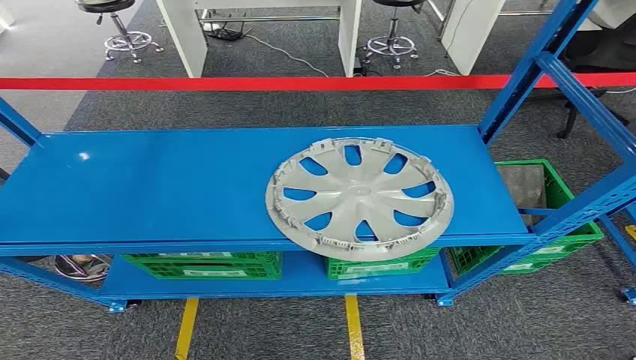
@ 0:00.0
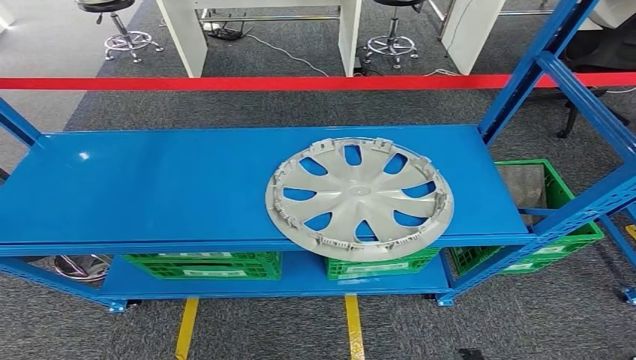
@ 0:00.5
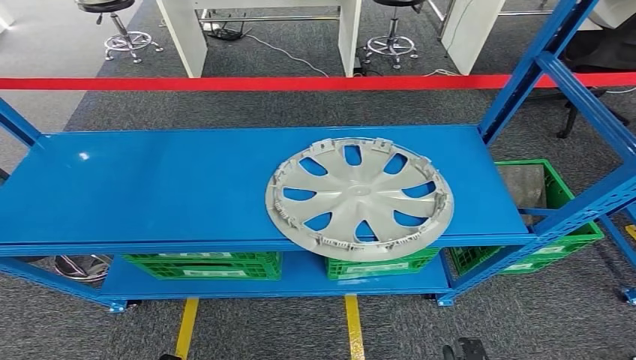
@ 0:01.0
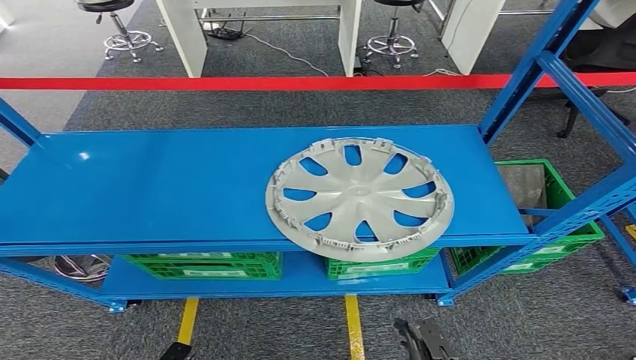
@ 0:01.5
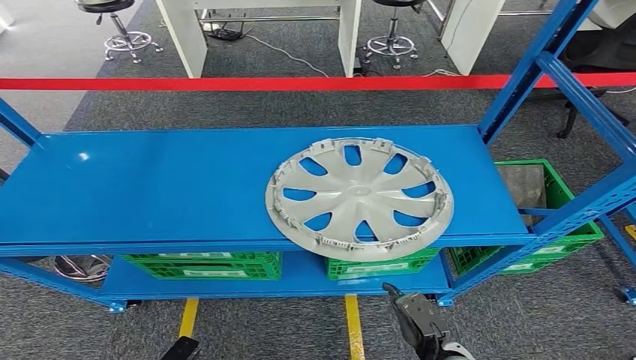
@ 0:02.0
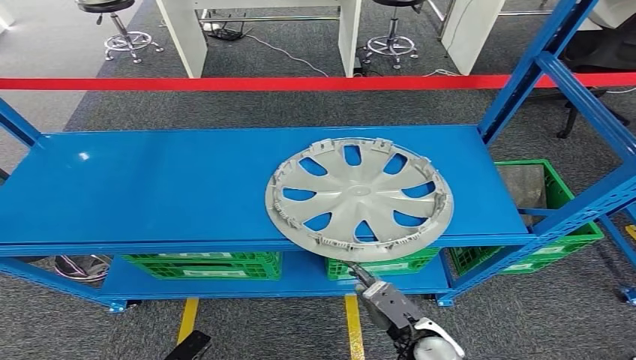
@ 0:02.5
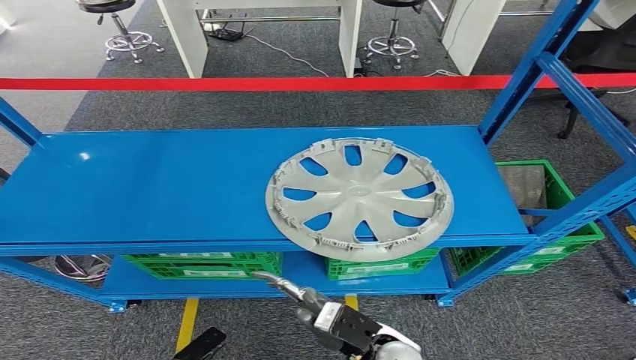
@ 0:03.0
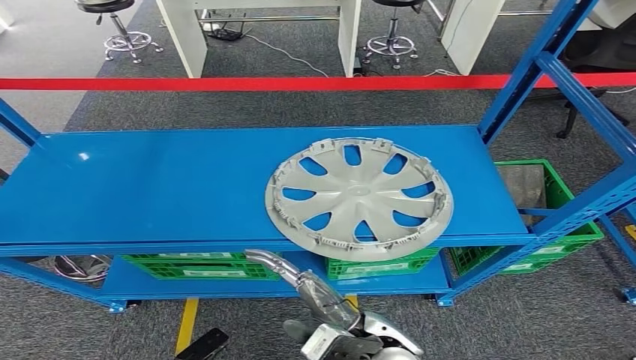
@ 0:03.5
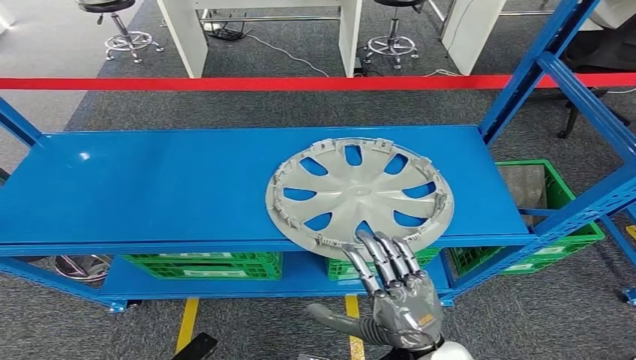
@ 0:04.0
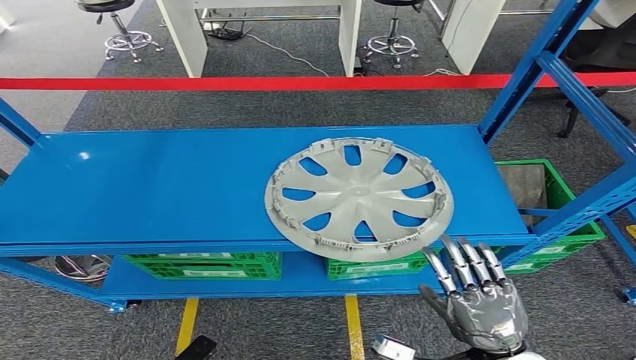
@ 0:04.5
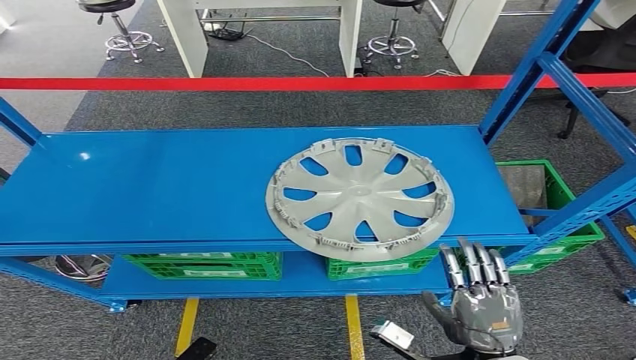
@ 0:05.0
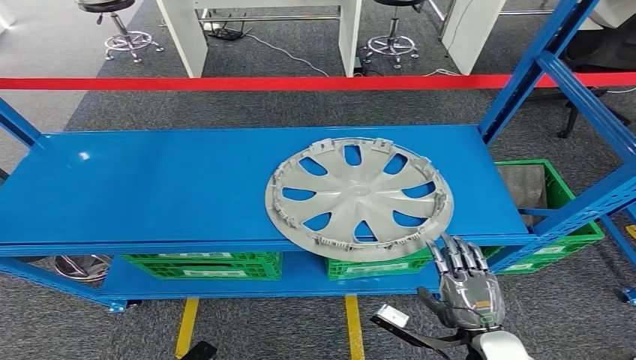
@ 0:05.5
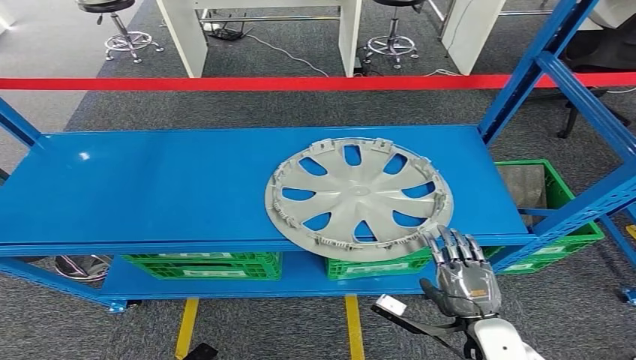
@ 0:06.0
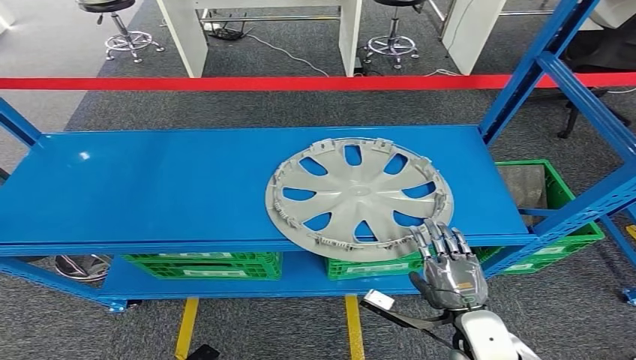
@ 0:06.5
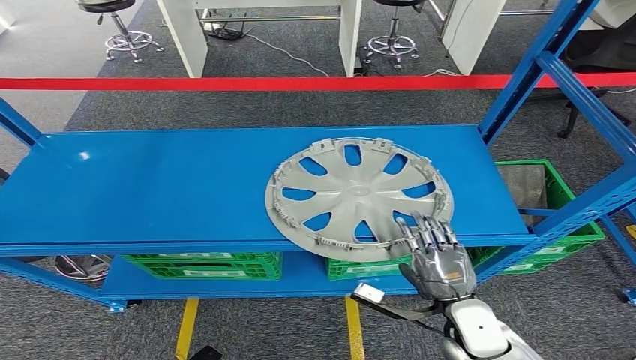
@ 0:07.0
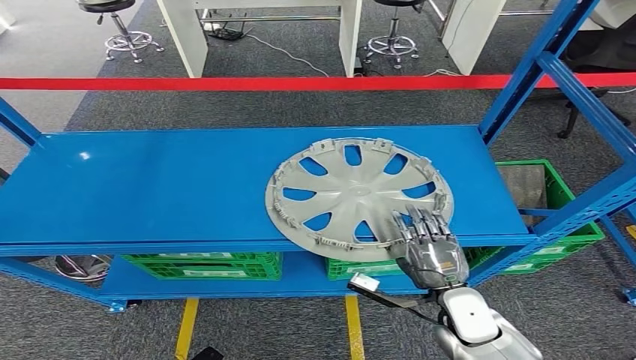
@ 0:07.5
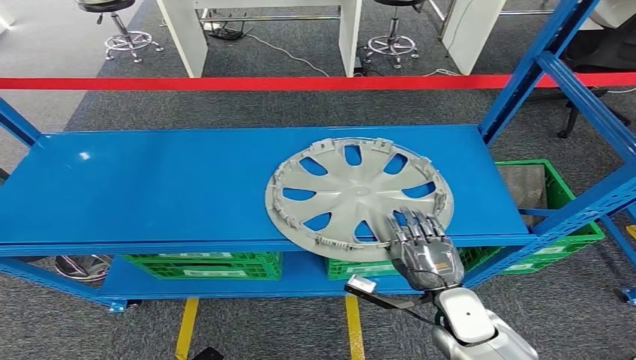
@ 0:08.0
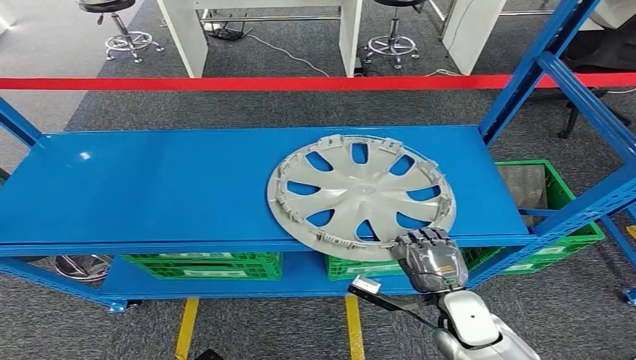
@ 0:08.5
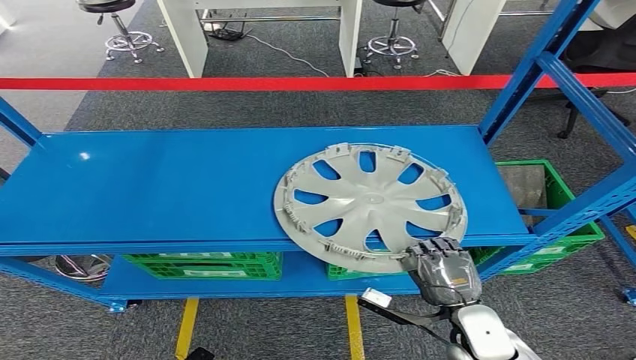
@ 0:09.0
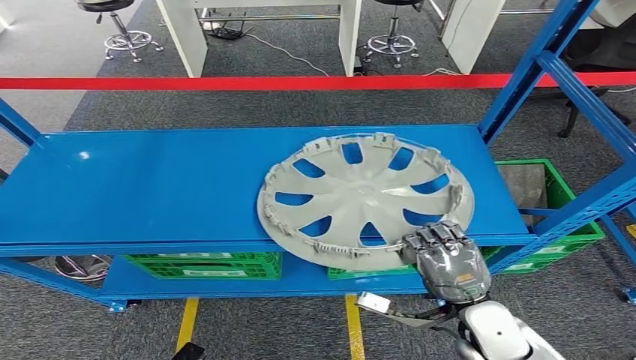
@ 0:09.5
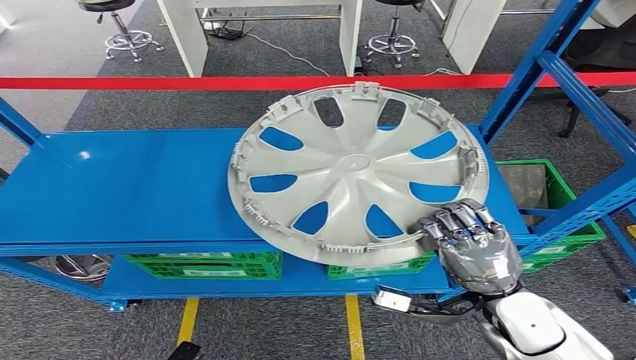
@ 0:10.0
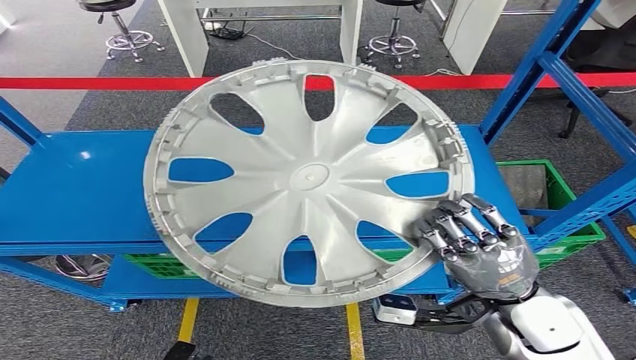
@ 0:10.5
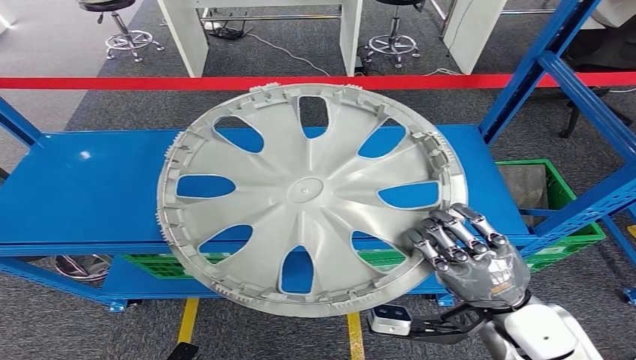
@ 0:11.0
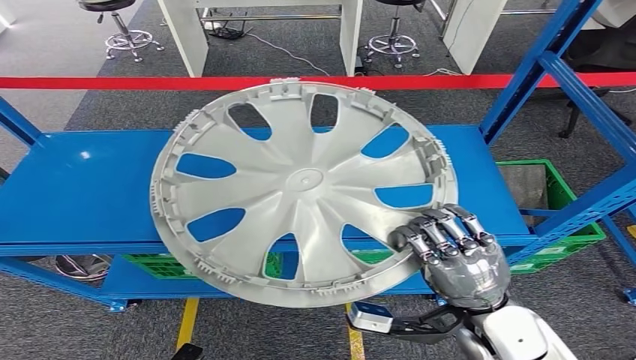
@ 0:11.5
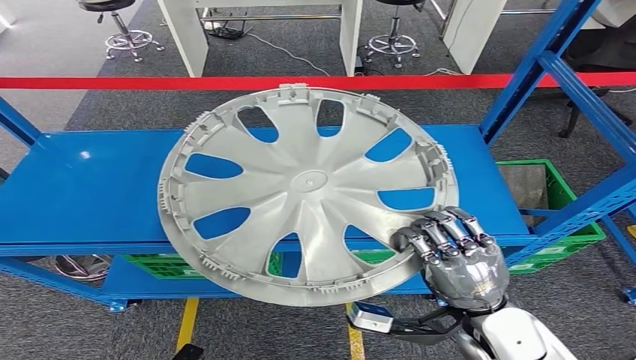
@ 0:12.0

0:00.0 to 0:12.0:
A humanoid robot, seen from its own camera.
0:02.0 to 0:04.0: The right hand is displaced upward by roughly 20 cm.
0:04.0 to 0:06.0: The right hand is displaced to the right and downward by about 15 cm.
0:06.0 to 0:08.0: The right hand is displaced forward by about 5 cm.
0:08.0 to 0:10.0: The right hand is displaced upward by roughly 10 cm.

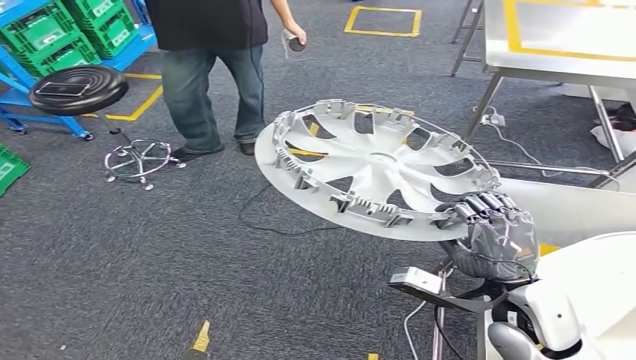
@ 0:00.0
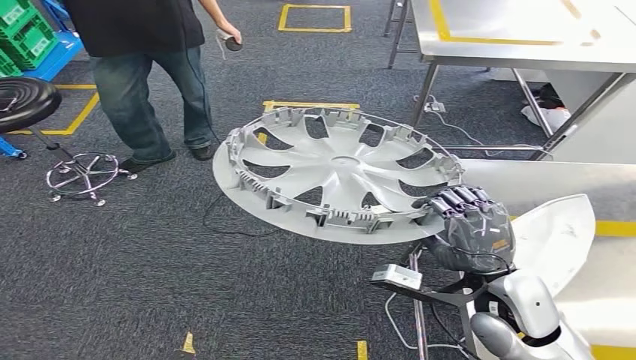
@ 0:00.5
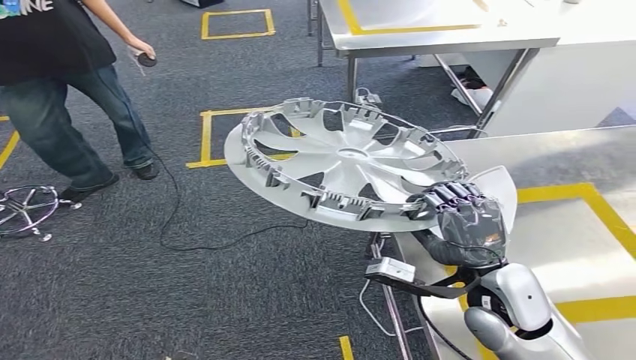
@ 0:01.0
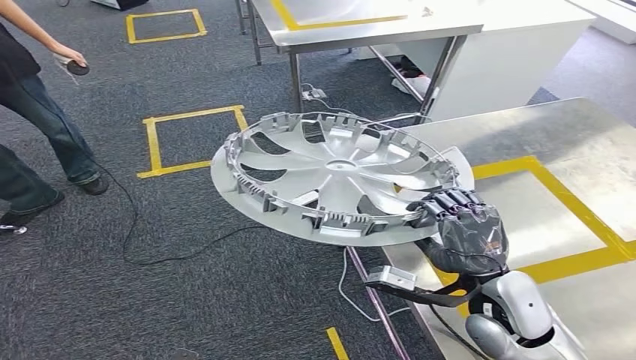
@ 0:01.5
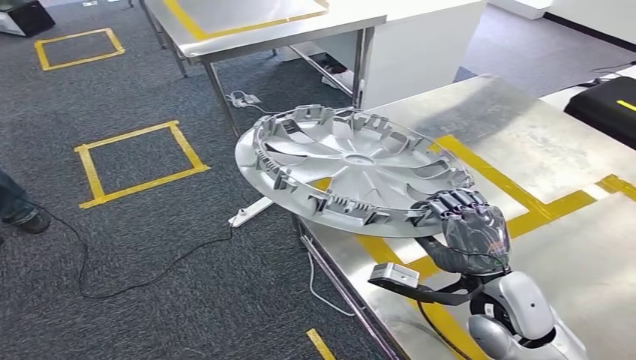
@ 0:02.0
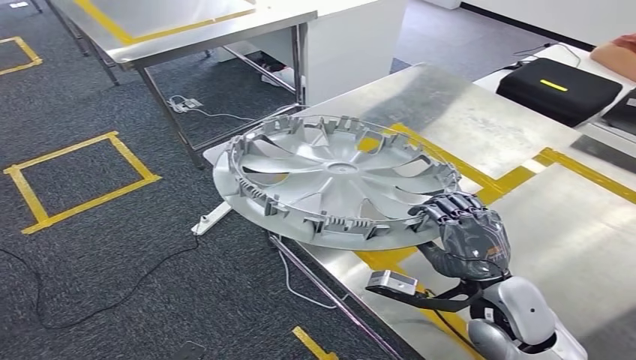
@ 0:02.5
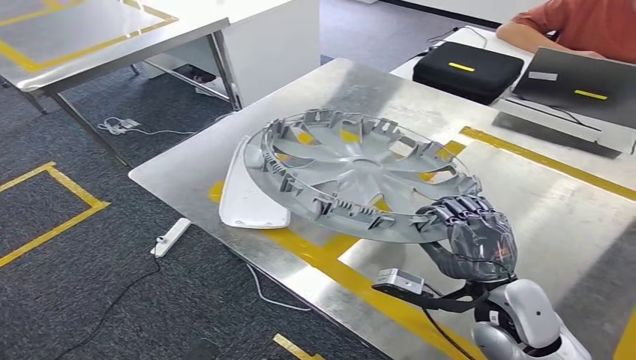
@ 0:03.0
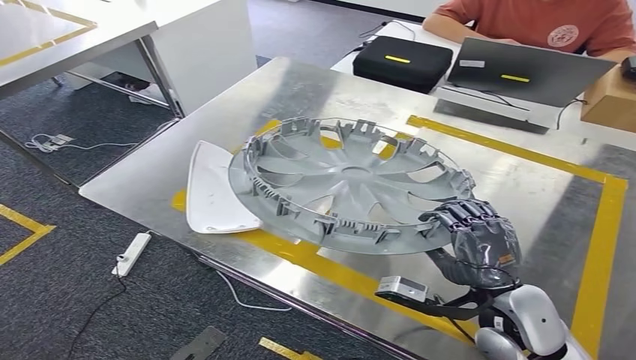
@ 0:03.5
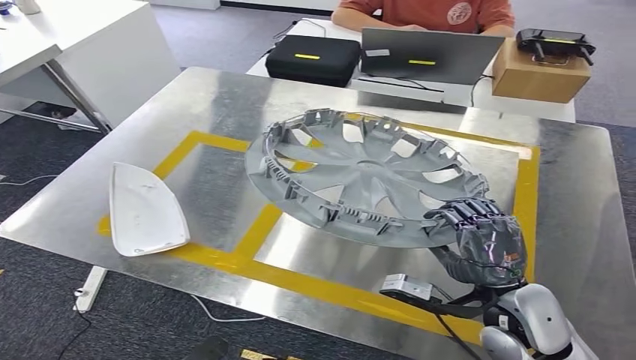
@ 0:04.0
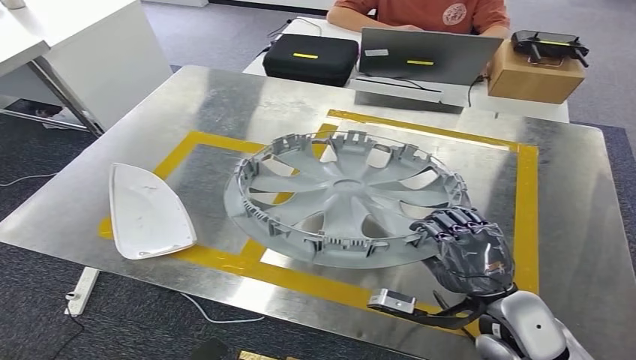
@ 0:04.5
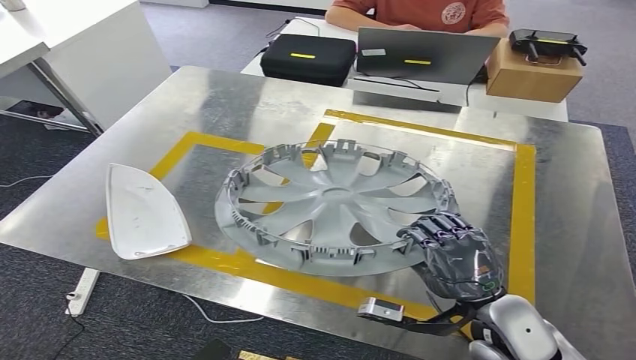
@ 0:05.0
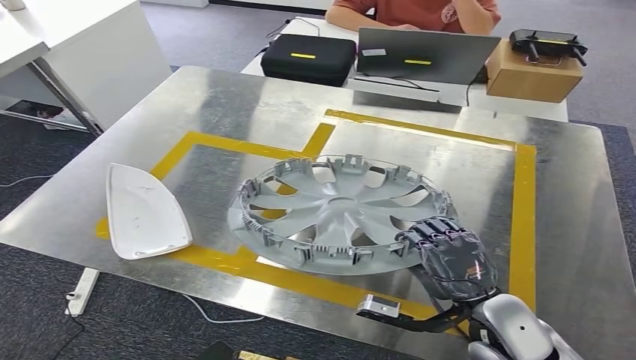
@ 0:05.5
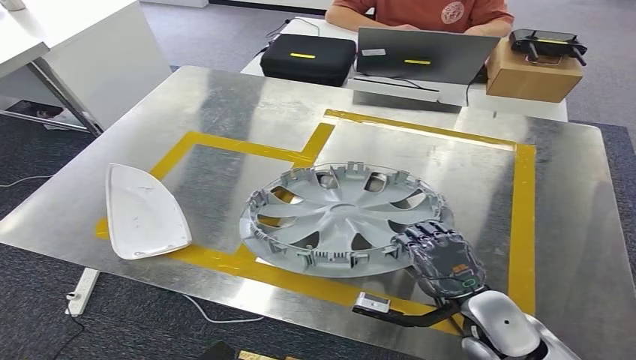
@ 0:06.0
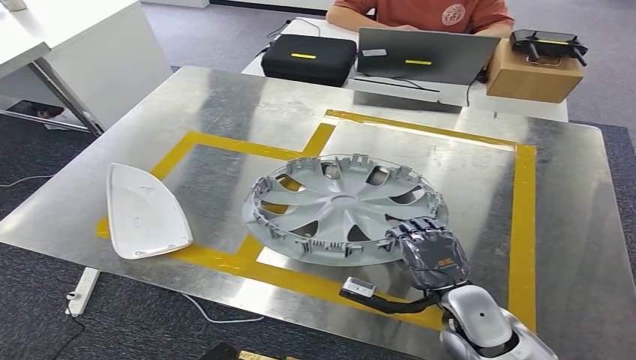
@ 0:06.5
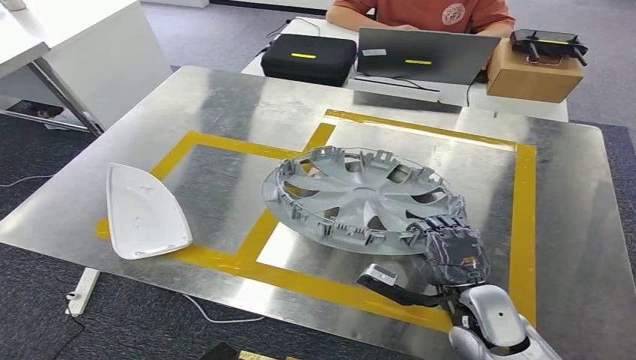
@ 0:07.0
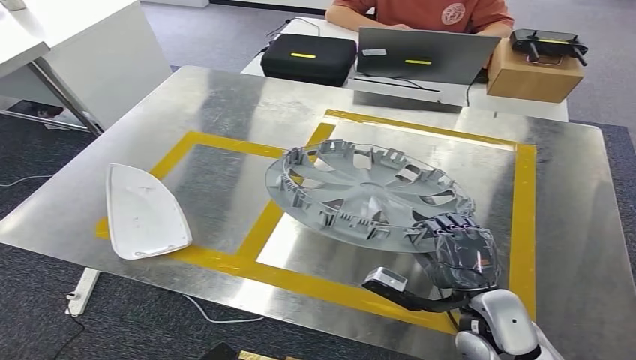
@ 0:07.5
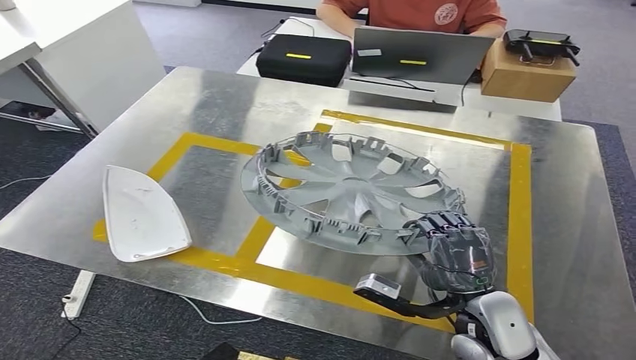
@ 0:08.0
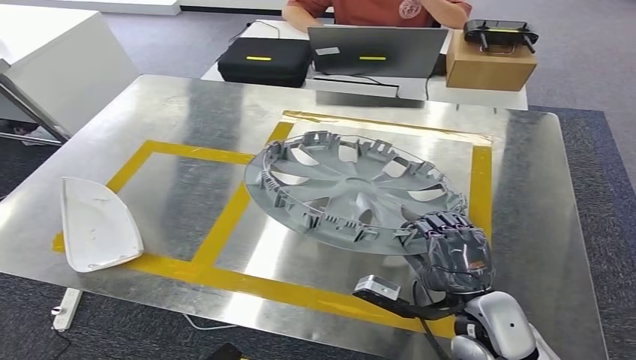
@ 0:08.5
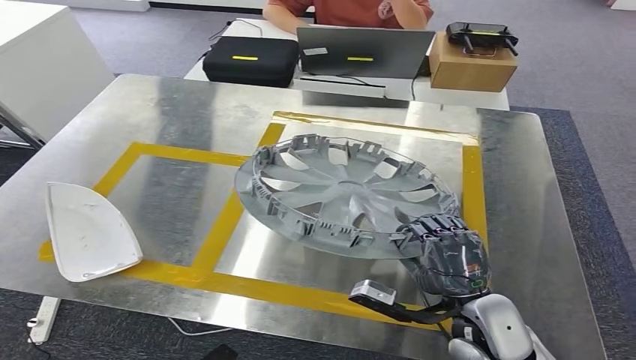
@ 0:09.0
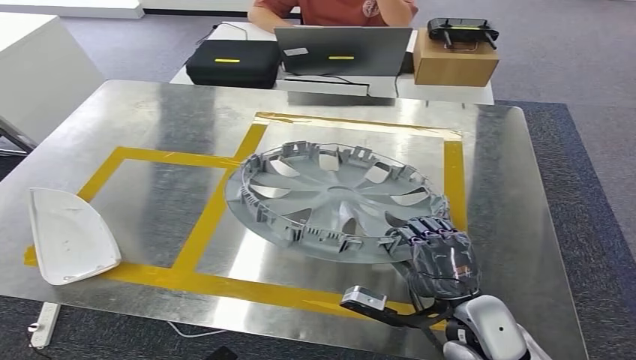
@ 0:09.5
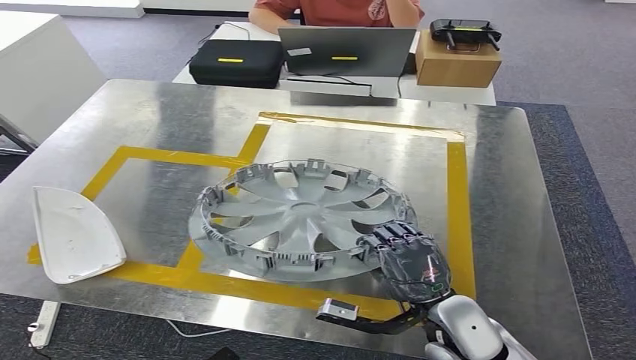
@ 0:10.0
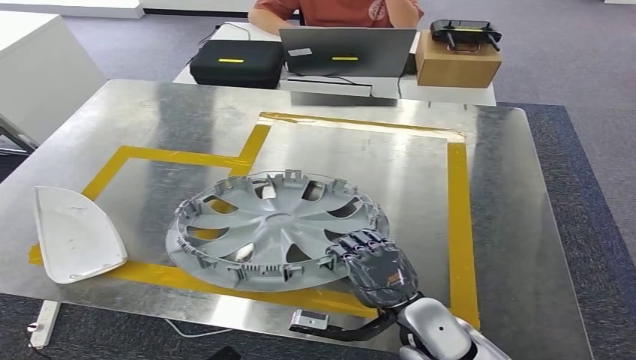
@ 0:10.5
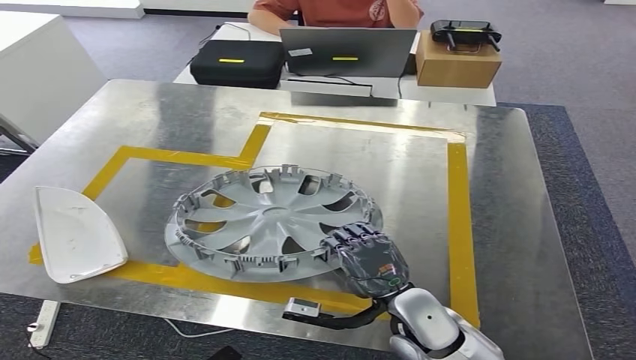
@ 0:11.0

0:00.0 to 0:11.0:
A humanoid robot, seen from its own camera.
0:05.5 to 0:07.5: There are only small adjustments of the hands.
